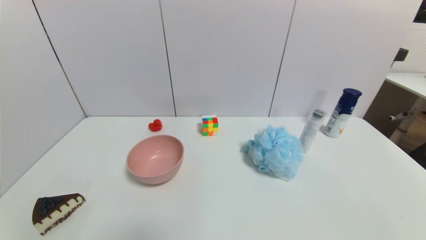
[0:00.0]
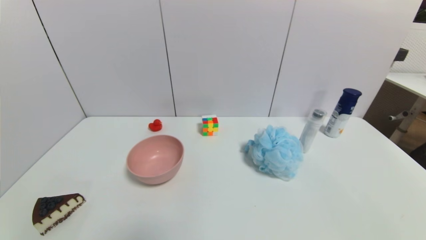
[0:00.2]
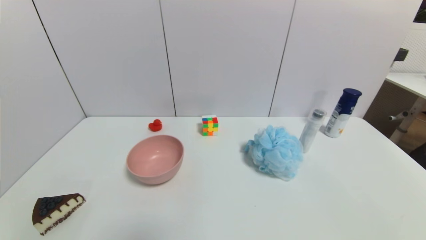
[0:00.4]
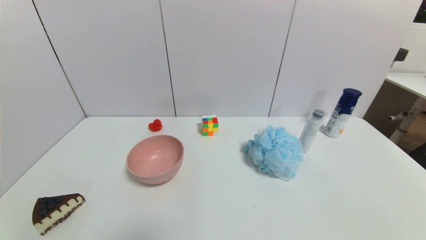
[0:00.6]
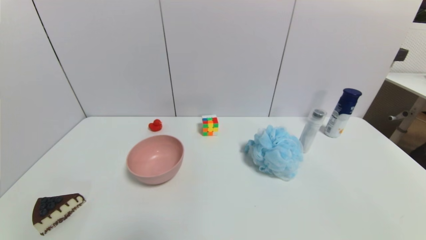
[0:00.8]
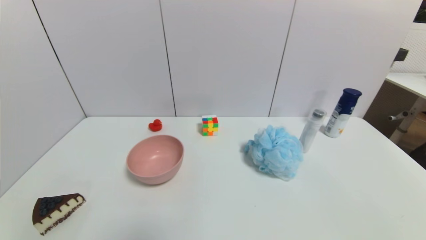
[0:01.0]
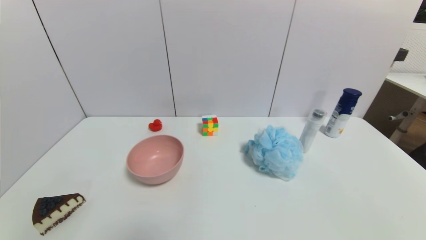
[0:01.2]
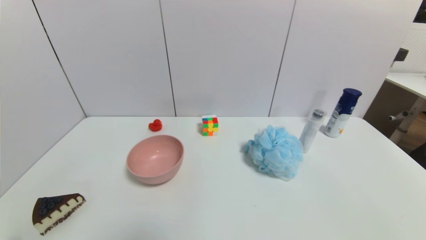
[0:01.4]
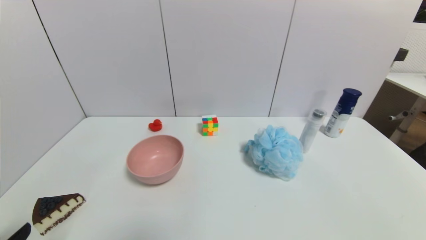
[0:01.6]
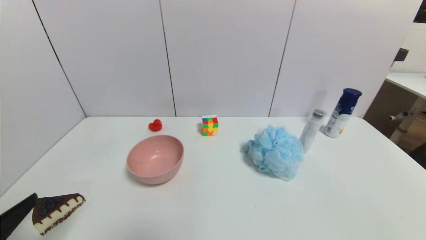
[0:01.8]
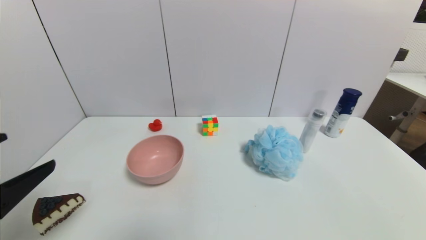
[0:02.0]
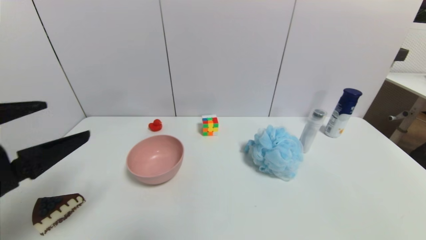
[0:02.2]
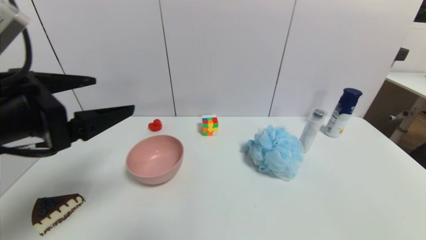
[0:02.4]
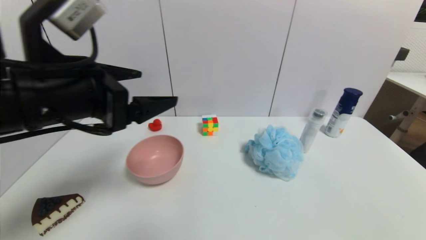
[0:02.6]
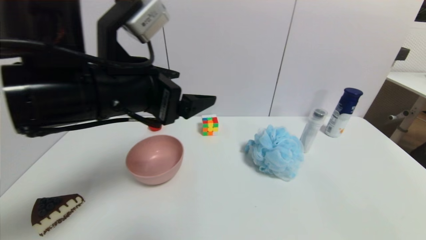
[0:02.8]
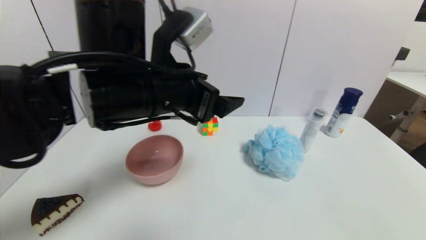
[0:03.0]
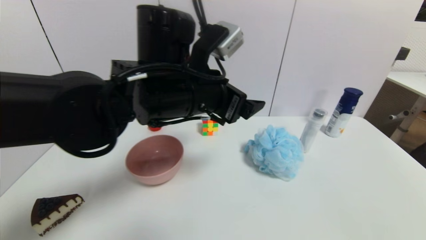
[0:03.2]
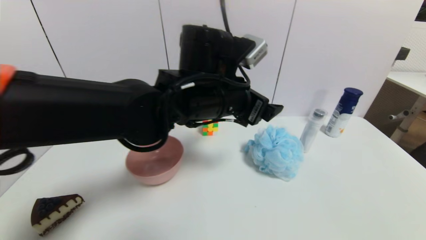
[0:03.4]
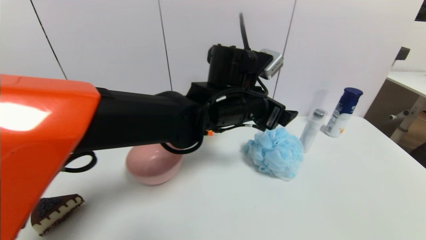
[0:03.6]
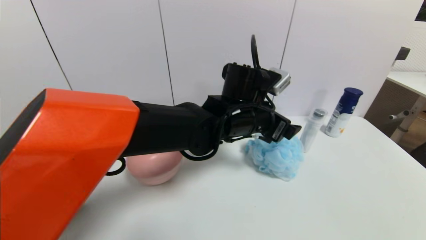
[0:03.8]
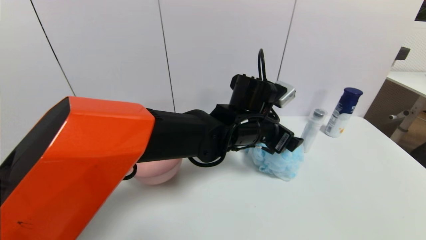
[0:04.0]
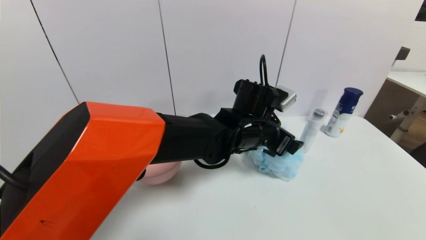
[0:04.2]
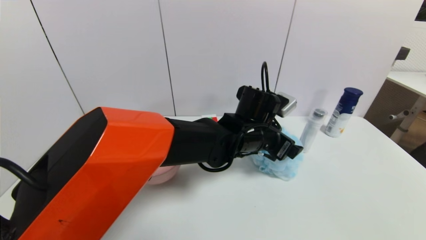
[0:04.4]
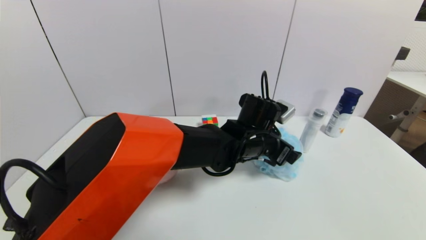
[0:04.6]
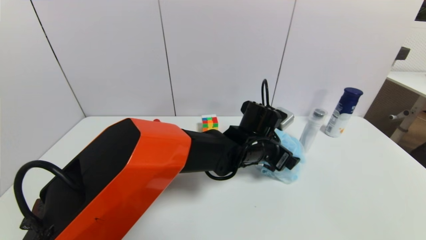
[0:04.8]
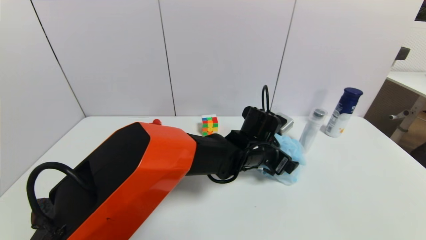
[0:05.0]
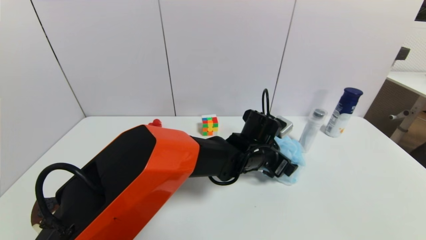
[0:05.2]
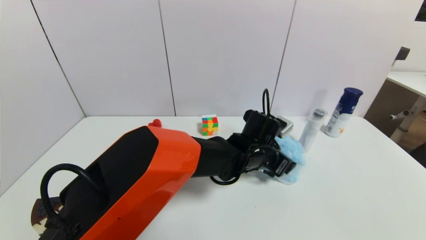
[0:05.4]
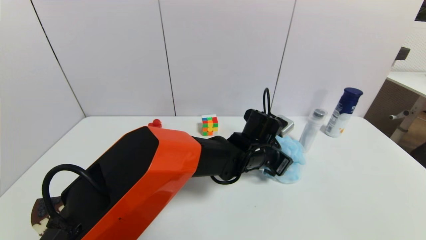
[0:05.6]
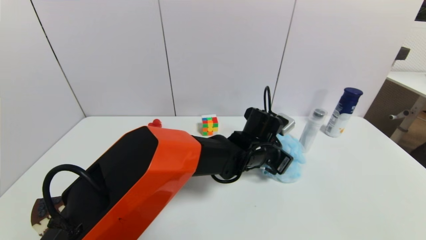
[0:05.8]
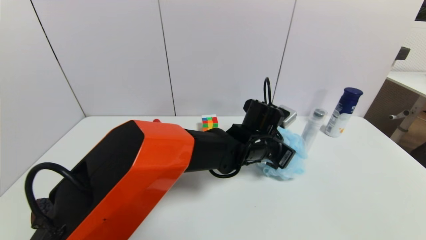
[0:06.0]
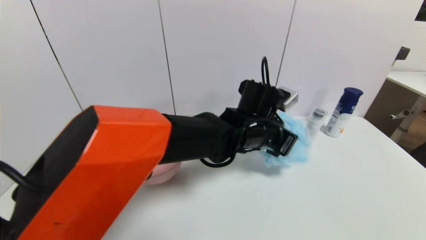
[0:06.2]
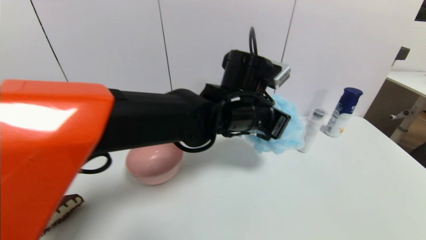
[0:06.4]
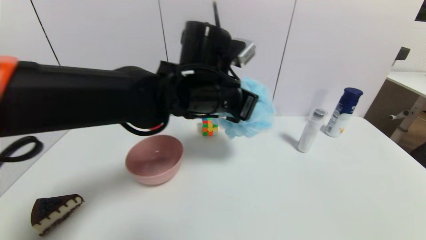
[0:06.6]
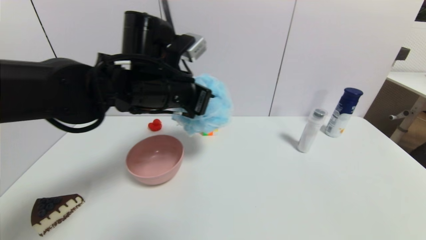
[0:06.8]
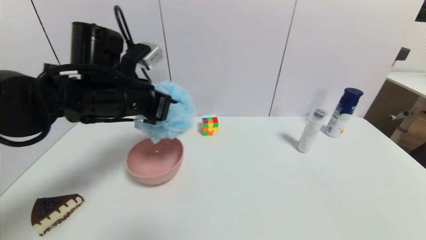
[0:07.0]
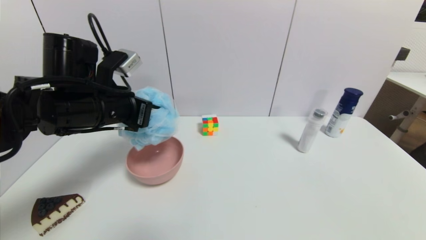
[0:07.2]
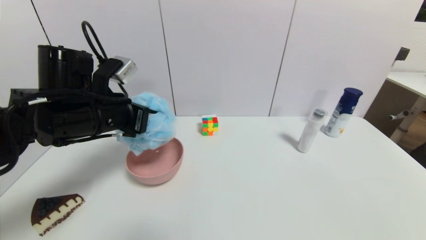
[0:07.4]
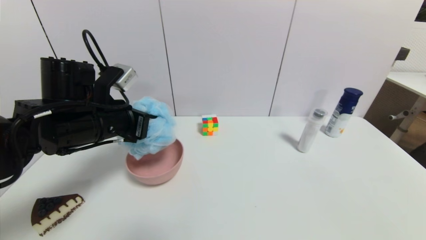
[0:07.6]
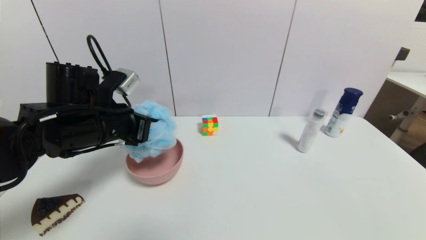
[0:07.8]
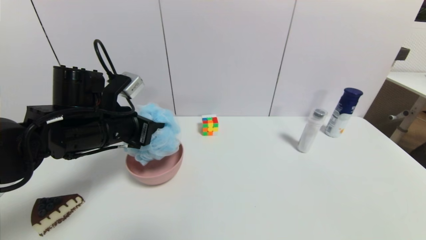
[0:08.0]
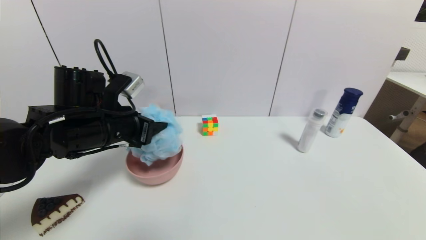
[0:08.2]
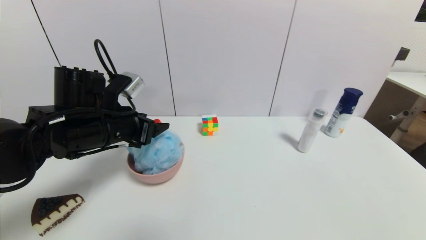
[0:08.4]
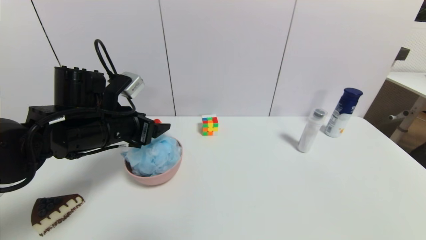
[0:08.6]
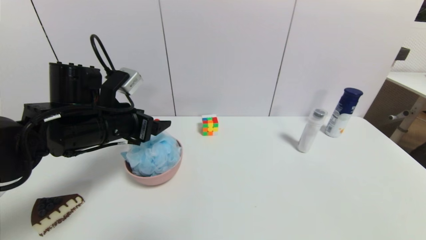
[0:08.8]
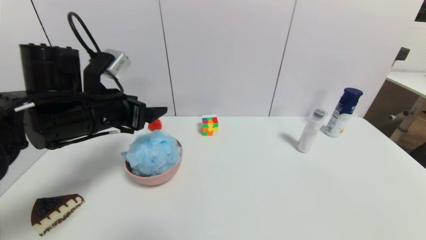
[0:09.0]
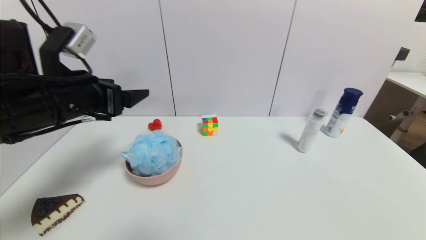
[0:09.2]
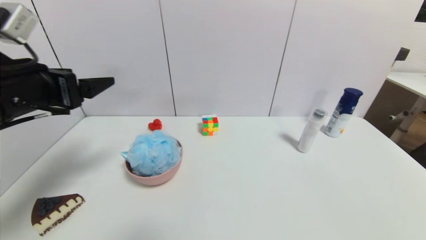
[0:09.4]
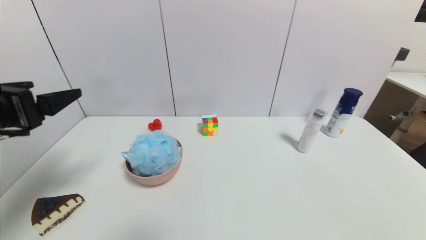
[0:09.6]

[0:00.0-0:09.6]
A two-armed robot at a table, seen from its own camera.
Task of the whole recording: use a gripper to pick the target object and place on the pink bowl.
Step, 0:00.0 to 0:05.8: Grasp the shower sphere with the left gripper.
Step, 0:06.0 to 0:08.4: Place the shower sphere on the pink bowl with the left gripper.
0:01.6 to 0:03.2: The left gripper moves to the right, forward and upward, roughly 40 cm.
0:03.2 to 0:04.8: The left gripper goes roughly 20 cm downward, to the right and forward.
0:04.8 to 0:06.4: The left gripper moves upward and to the left, roughly 10 cm, and closes.
0:06.4 to 0:08.0: The left gripper goes about 25 cm to the left.
0:08.0 to 0:09.6: The left gripper shifts about 15 cm backward, to the left and upward, and opens up.

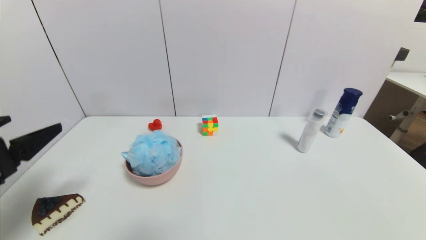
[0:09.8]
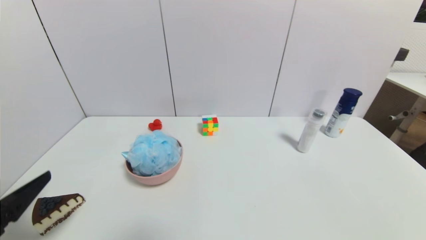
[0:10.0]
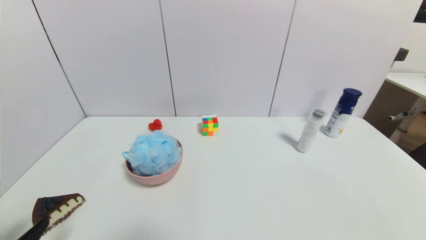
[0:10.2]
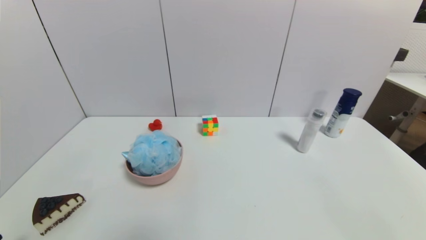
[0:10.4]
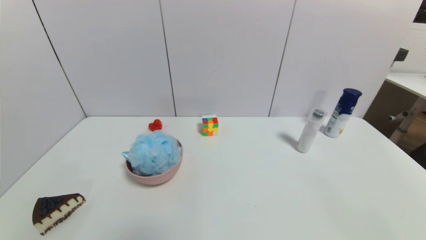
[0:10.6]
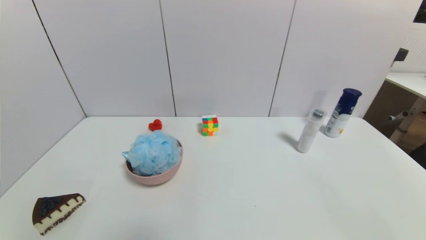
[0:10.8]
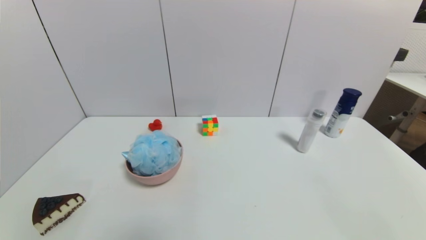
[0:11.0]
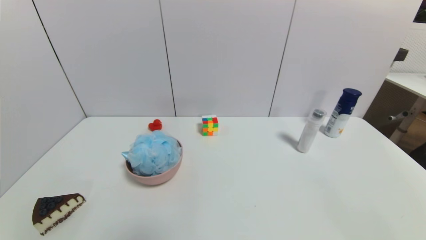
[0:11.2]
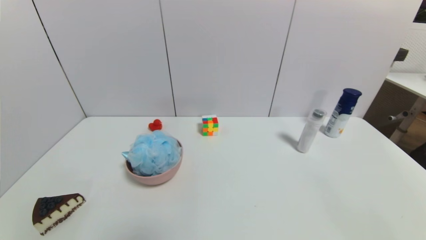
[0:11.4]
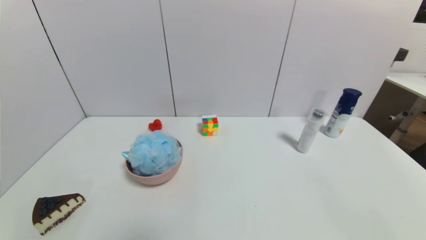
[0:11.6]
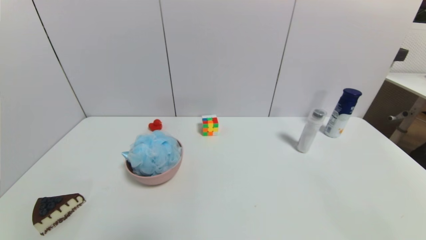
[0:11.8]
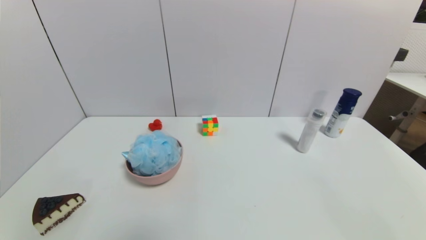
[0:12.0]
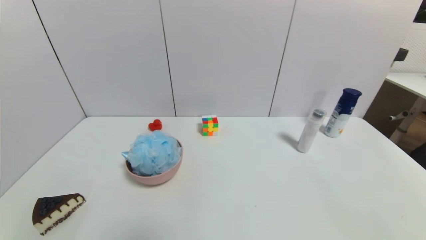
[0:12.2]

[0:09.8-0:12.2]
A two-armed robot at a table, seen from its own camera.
Task of the whole recording: use a gripper to pick the target object and place on the pink bowl.
0:09.8 to 0:11.0: The left gripper moves downward and backward, approximately 20 cm.
0:11.0 to 0:12.2: Both grippers stay about where they are.

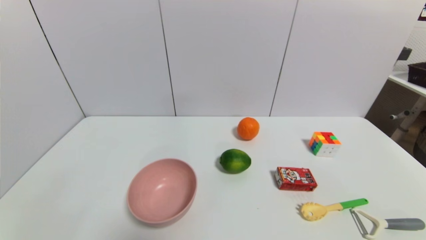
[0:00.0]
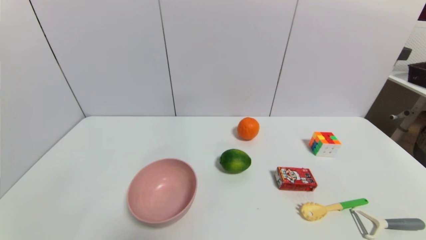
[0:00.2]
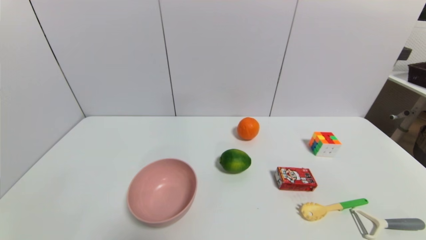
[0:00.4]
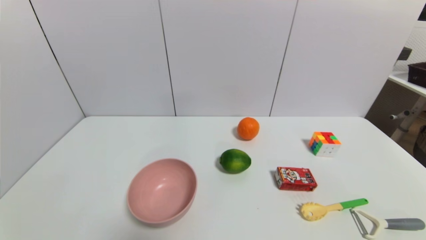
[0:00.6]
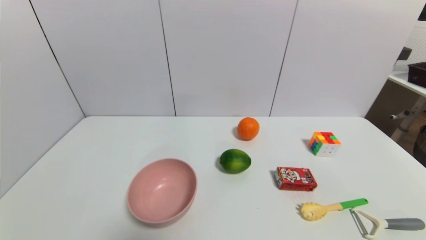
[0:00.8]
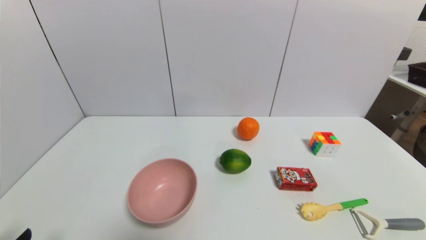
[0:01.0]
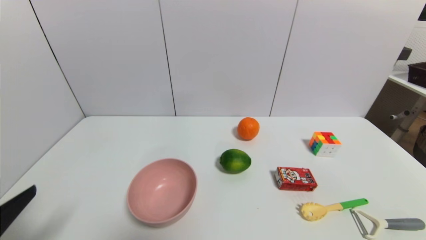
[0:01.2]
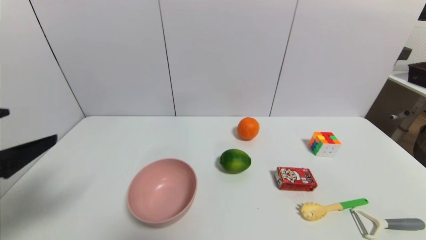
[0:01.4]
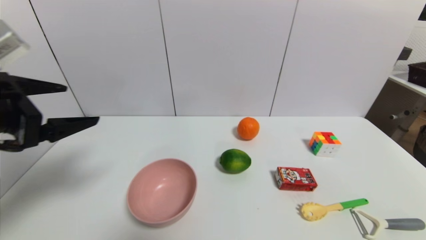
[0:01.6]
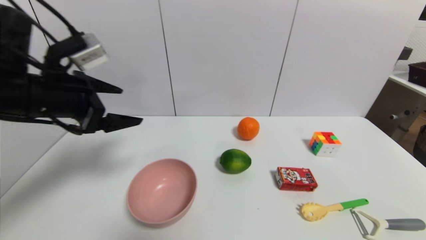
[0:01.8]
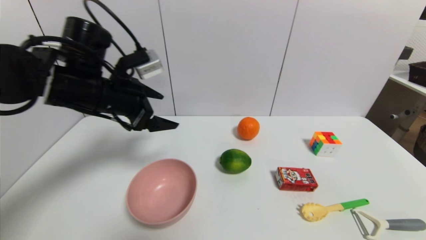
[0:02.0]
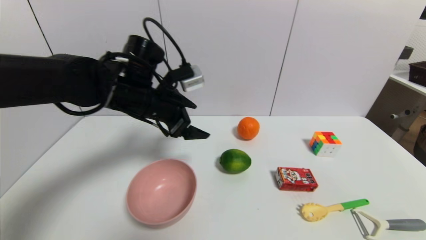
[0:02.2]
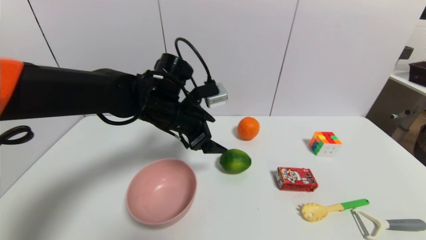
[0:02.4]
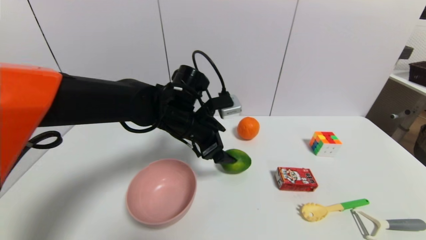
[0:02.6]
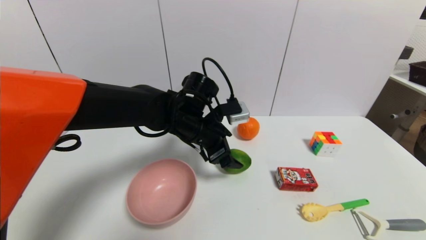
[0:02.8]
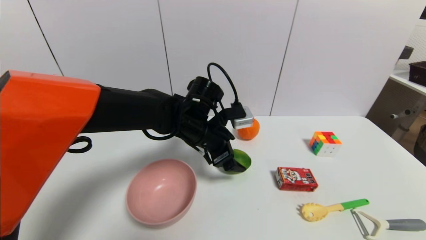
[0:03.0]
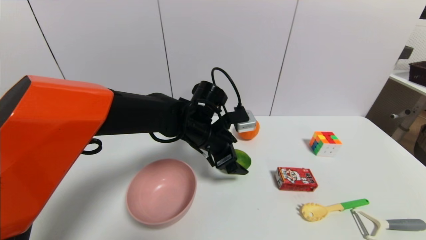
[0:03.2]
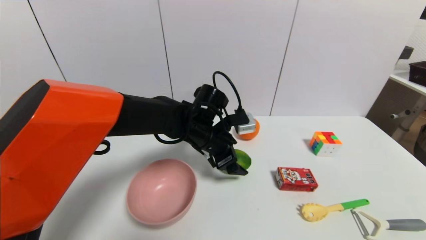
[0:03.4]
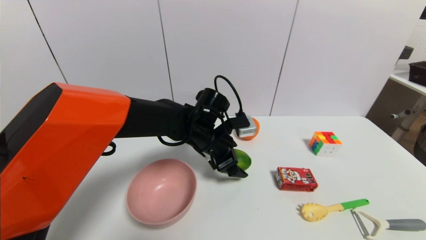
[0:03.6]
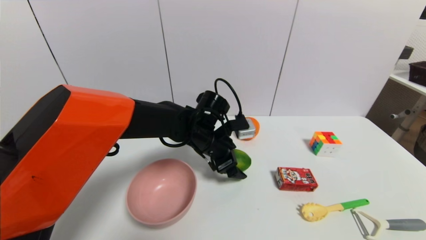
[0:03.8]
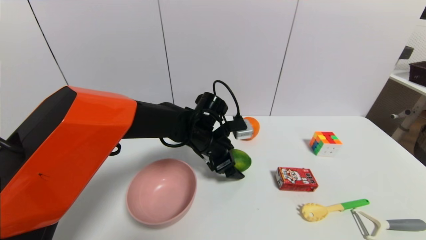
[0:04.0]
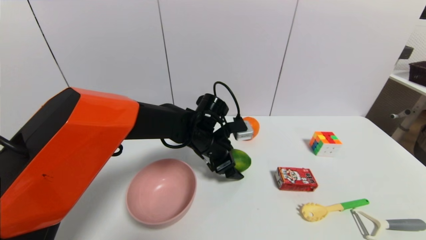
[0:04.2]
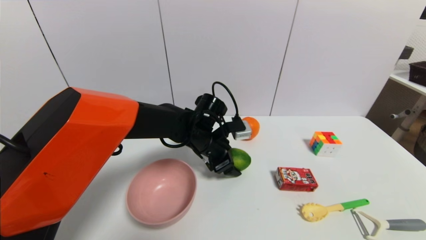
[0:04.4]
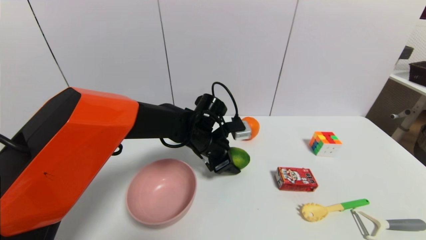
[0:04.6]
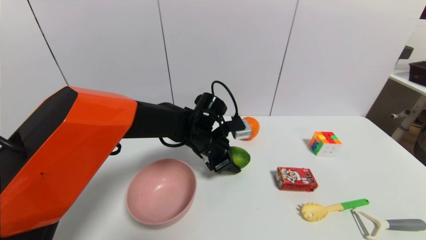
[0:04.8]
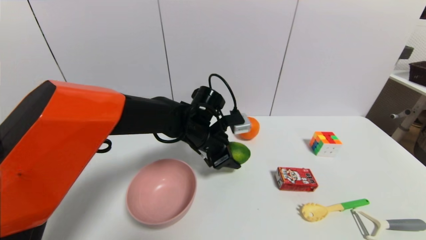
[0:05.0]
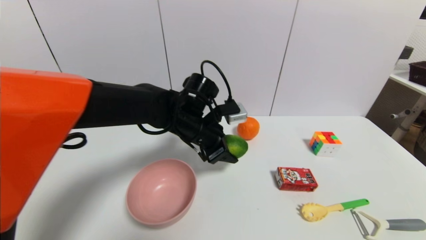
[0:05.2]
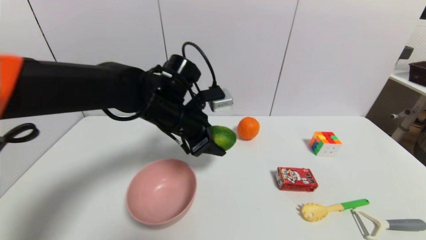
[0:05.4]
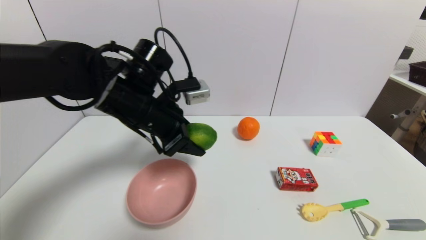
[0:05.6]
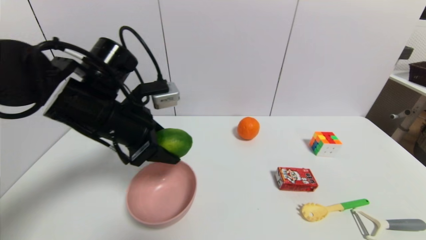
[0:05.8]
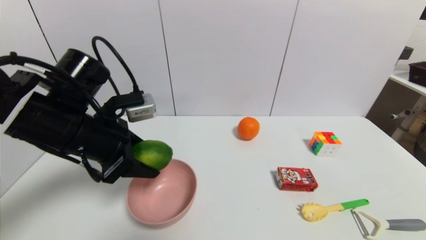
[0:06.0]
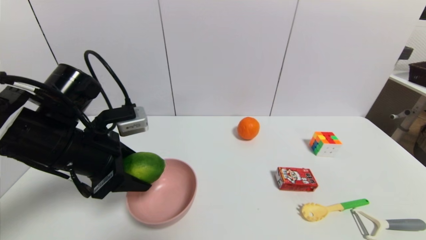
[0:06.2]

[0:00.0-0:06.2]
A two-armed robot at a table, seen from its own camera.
Task of the whole recording: use a gripper to pick the target object and place on the pink bowl.
Step, 0:00.0 to 0:04.6: Grasp the green lemon with the left gripper.
0:00.0 to 0:01.6: The left gripper goes approximately 30 cm upward and forward.
0:01.6 to 0:03.2: The left gripper goes roughly 35 cm to the right, forward and downward.
0:03.2 to 0:04.6: The left gripper closes up.
0:04.6 to 0:06.2: The left gripper is displaced to the left, backward and upward by roughly 25 cm.
